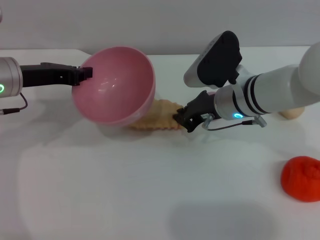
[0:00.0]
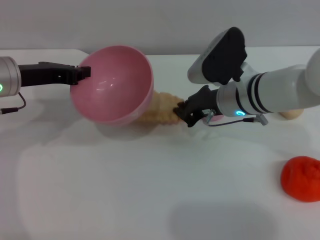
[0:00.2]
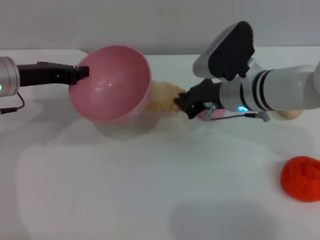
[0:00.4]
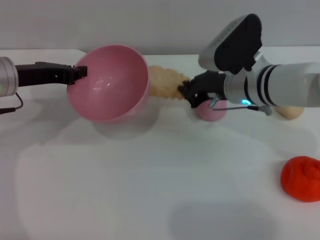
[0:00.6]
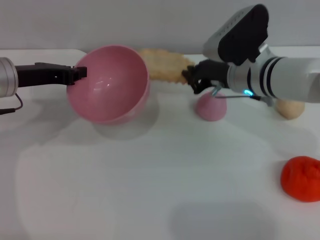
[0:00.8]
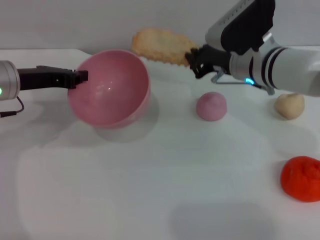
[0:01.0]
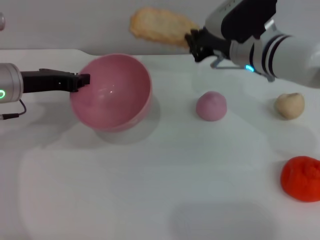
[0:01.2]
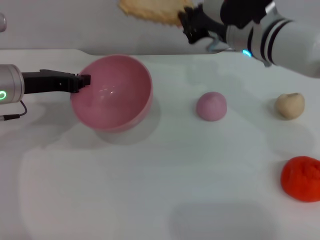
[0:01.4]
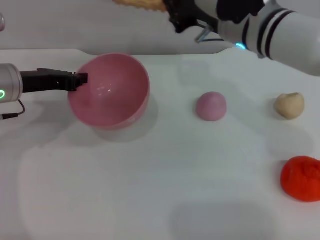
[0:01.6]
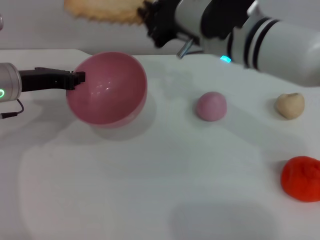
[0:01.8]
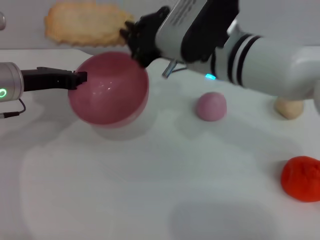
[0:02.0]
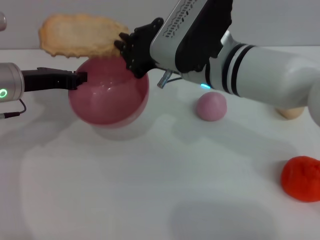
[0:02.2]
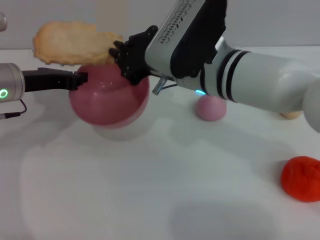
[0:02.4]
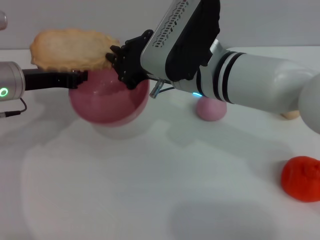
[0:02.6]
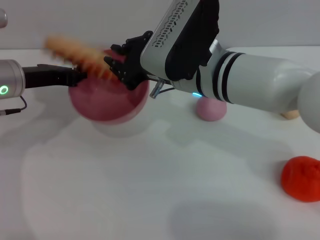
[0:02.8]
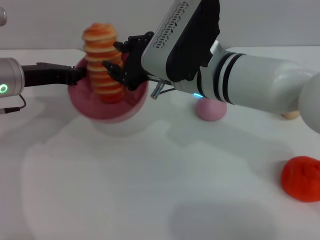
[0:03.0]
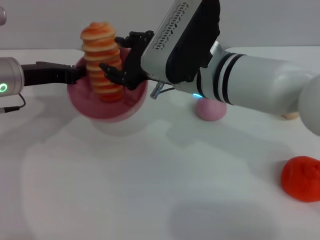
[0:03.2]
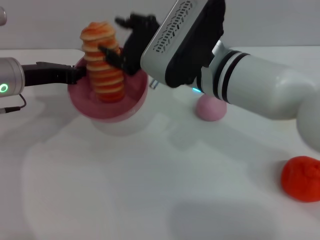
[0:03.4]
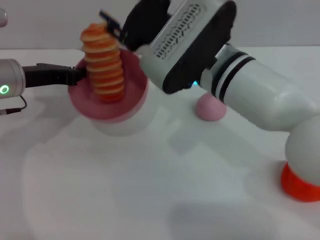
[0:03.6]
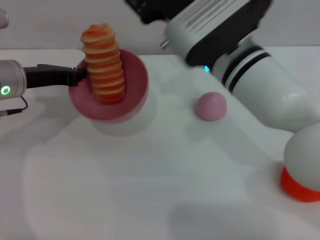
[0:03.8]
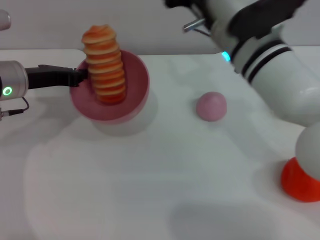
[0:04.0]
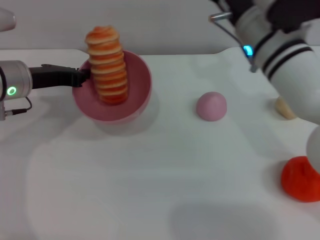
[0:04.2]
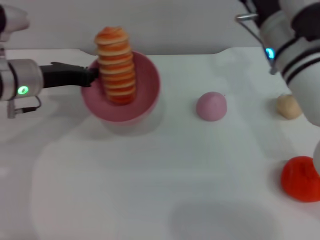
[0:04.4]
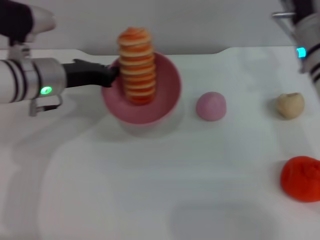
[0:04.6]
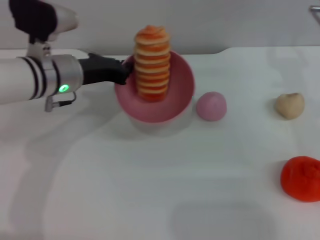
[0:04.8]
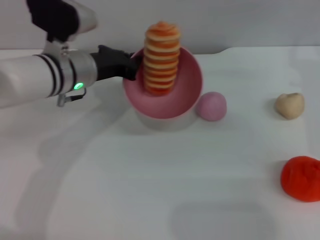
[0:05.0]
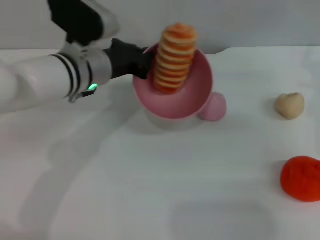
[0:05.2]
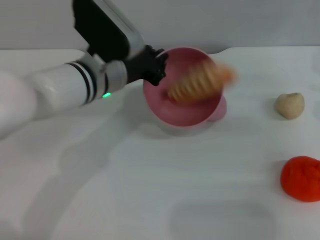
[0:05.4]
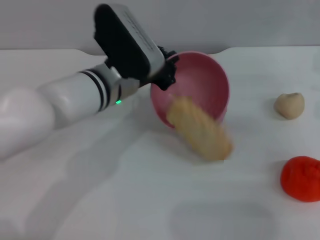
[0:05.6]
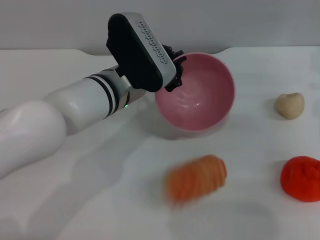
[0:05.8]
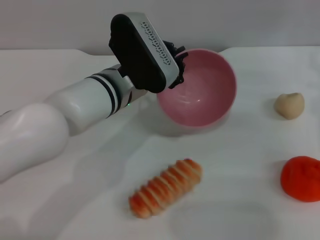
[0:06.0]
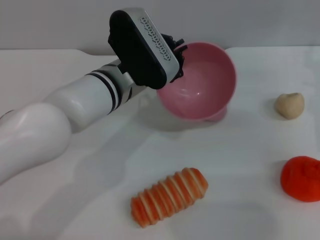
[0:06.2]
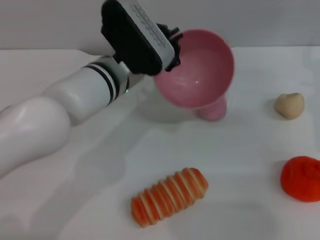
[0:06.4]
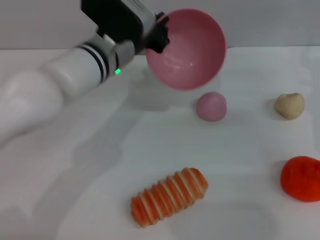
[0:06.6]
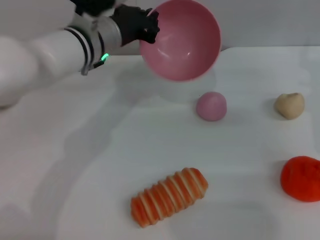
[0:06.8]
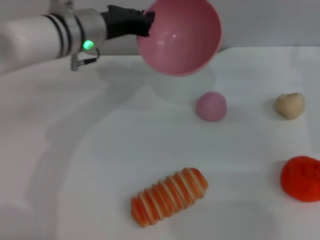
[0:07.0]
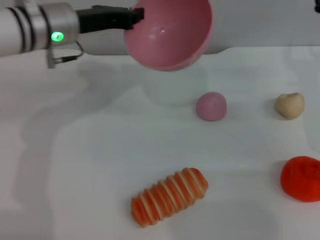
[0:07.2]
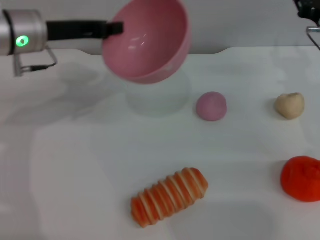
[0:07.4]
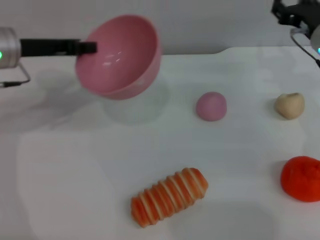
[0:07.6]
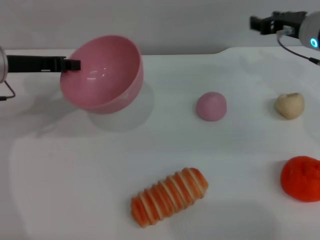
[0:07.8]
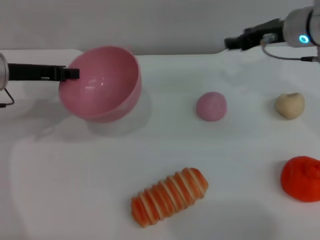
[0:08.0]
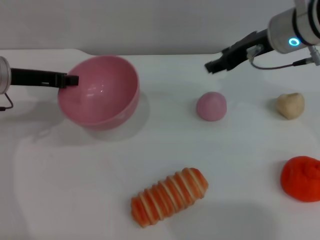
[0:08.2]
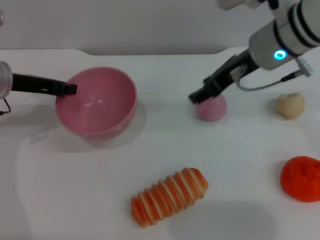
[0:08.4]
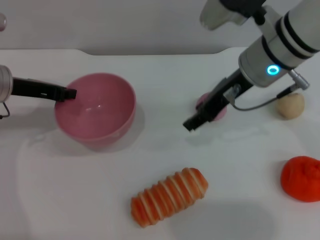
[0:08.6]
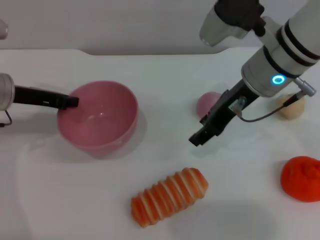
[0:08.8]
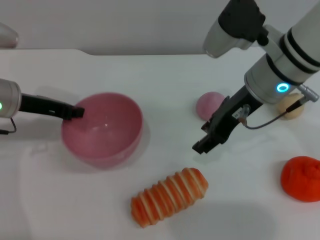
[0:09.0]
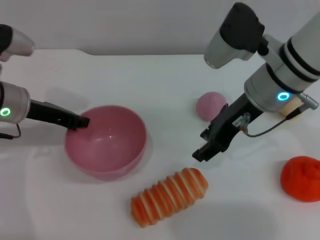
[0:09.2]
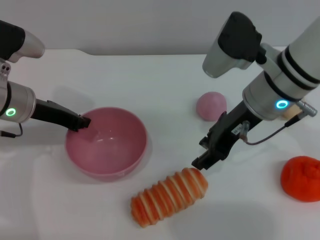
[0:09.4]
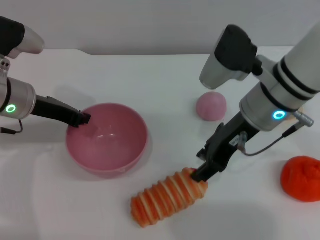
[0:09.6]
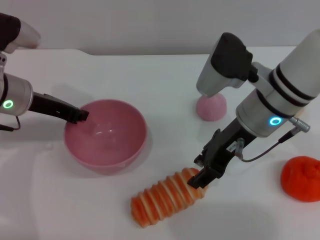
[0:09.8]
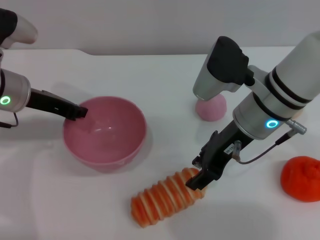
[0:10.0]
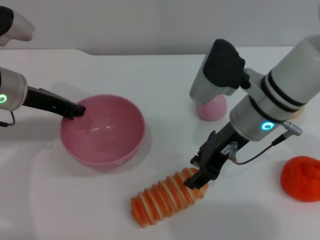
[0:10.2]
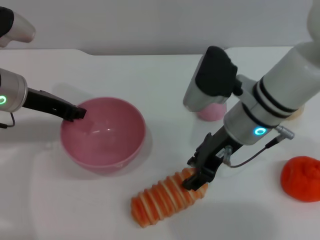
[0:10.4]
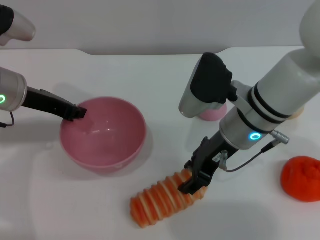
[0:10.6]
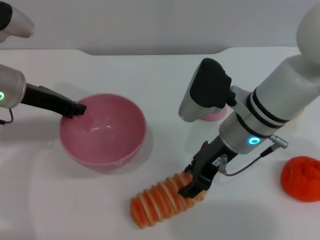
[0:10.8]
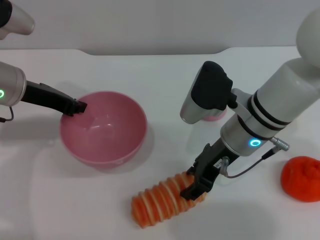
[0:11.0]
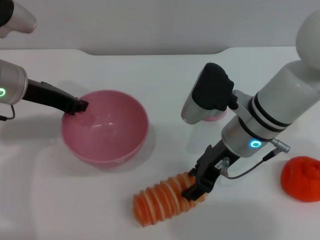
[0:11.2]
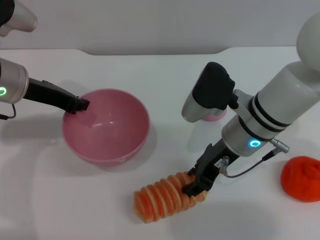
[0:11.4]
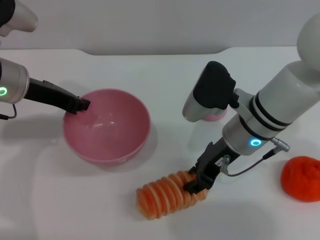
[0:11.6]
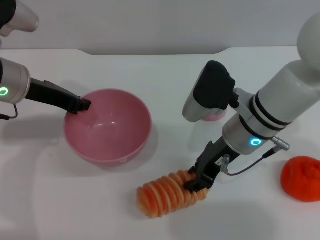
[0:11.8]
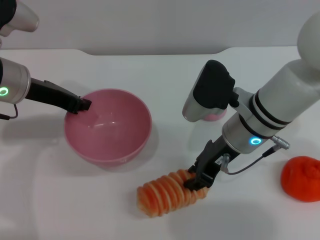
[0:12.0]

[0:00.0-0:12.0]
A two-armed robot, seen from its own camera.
Task of the whole recording: put the bread into the pink bowl and pour it out repeatedly.
Step, 1.0 to 3.6 s: Place the bread into the bowl.
Step, 3.8 to 7.0 s: Pour the bread out of the bowl.
0.0 to 1.6 s: The right gripper goes approximately 10 cm upward.
1.6 to 3.0 s: The right gripper heads to the left, covering about 5 cm.
3.0 to 4.4 s: The right gripper is displaced to the right by roughly 10 cm, and opens up.
4.4 to 6.0 s: Both grippers travel together to the right, about 15 cm.
6.0 to 7.6 s: The right gripper changes place by about 5 cm; the left gripper goes roughly 20 cm to the left.
7.6 to 9.0 s: The left gripper changes place by approximately 5 cm; the right gripper shifts roughly 15 cm to the left, upward and backward.
9.0 to 10.4 s: The right gripper moves downward, roughly 5 cm.
10.4 to 12.0 s: The right gripper closes.

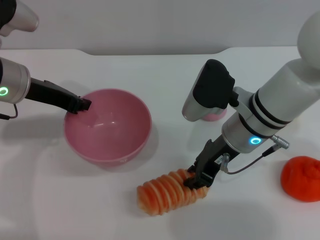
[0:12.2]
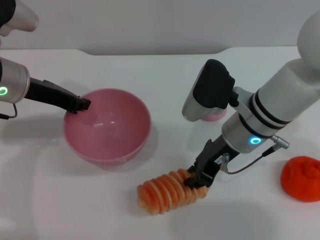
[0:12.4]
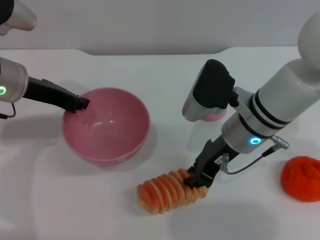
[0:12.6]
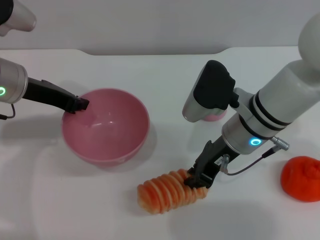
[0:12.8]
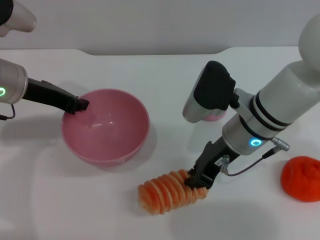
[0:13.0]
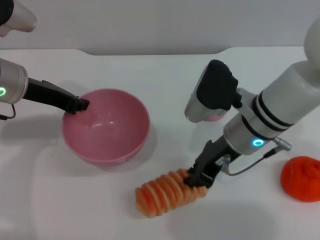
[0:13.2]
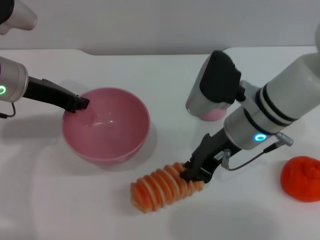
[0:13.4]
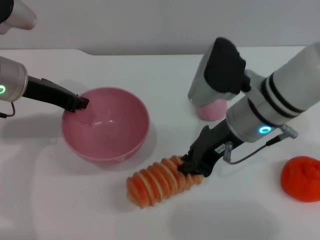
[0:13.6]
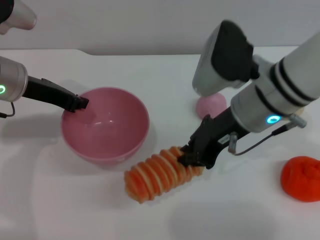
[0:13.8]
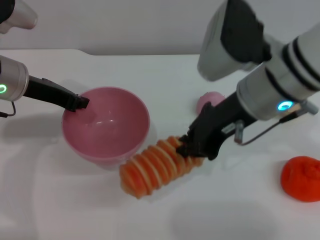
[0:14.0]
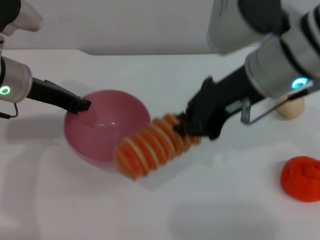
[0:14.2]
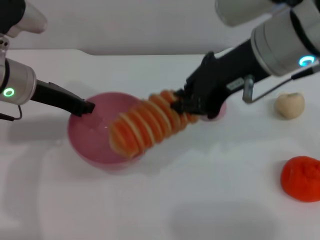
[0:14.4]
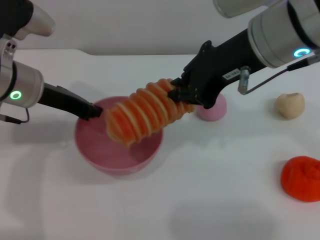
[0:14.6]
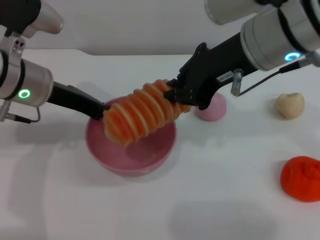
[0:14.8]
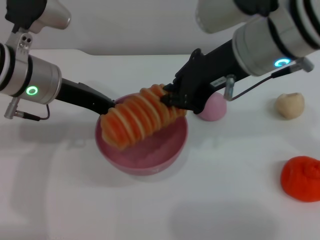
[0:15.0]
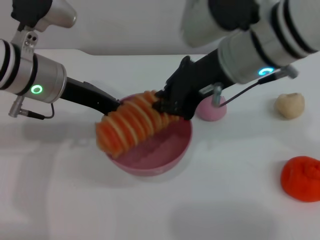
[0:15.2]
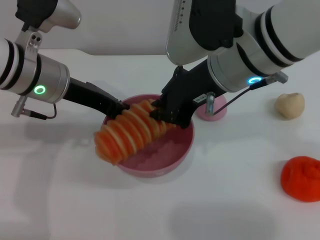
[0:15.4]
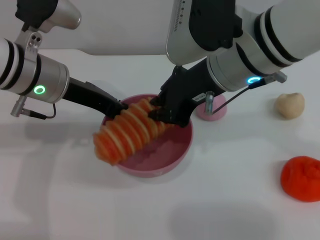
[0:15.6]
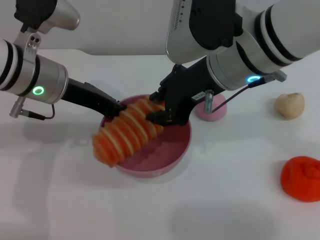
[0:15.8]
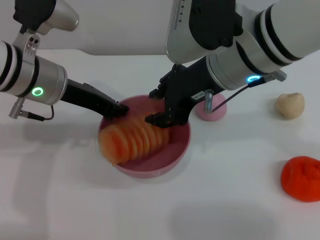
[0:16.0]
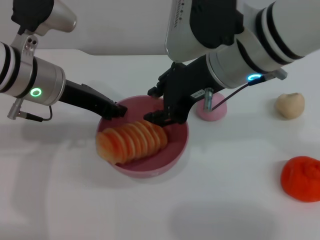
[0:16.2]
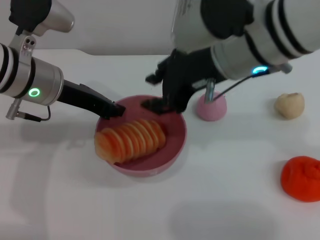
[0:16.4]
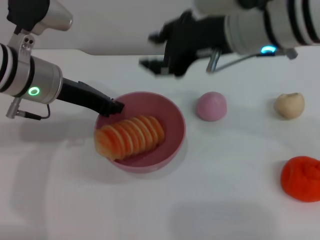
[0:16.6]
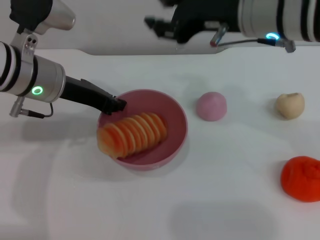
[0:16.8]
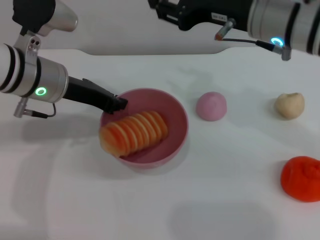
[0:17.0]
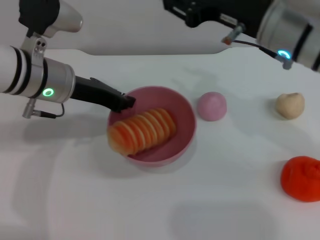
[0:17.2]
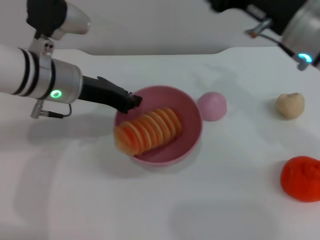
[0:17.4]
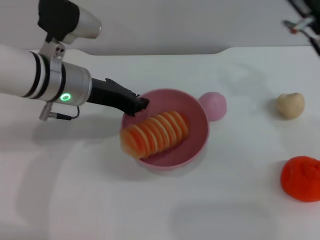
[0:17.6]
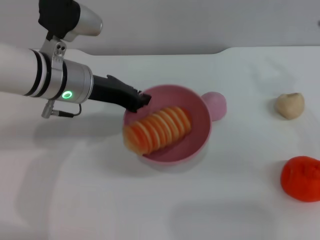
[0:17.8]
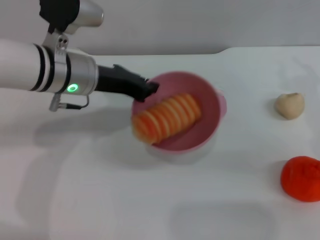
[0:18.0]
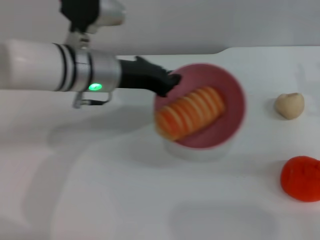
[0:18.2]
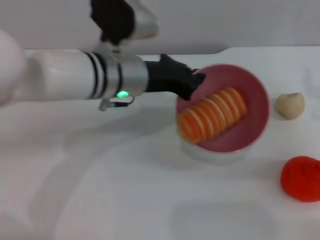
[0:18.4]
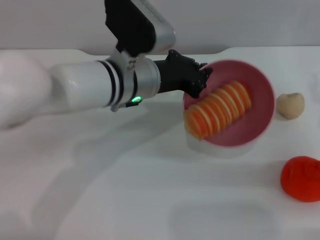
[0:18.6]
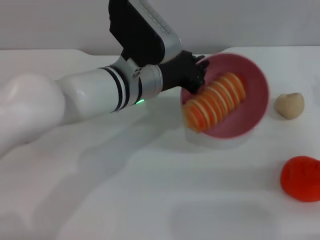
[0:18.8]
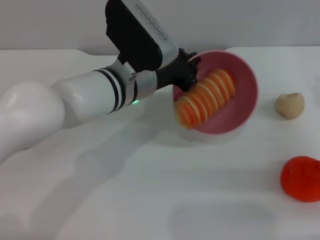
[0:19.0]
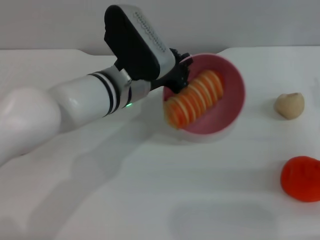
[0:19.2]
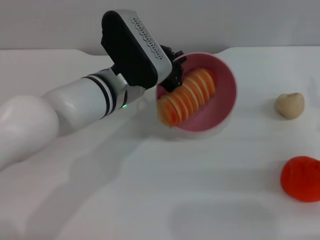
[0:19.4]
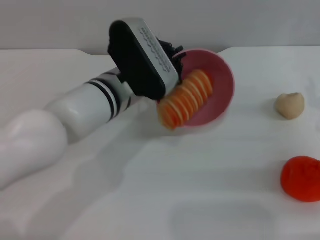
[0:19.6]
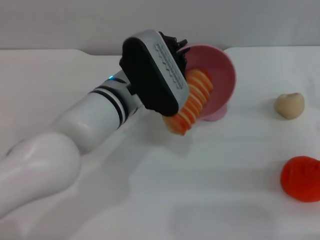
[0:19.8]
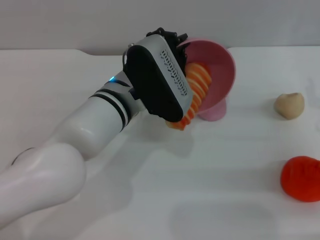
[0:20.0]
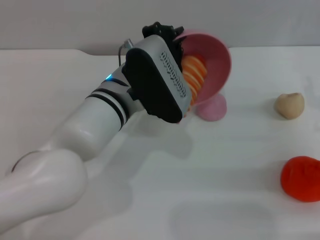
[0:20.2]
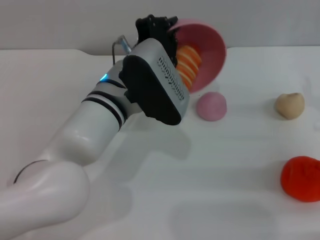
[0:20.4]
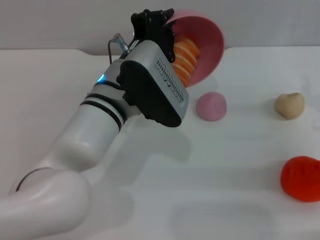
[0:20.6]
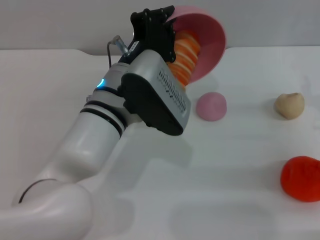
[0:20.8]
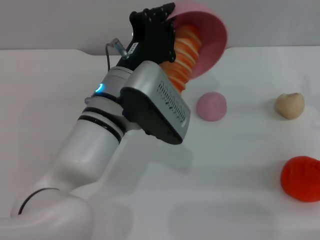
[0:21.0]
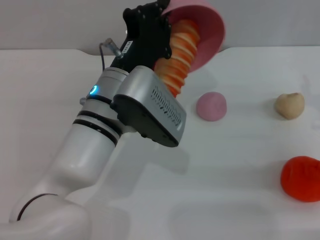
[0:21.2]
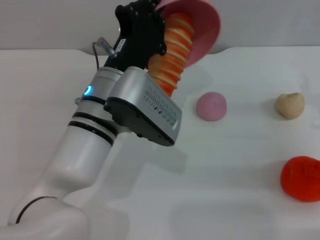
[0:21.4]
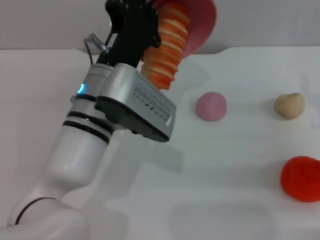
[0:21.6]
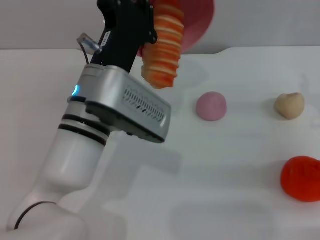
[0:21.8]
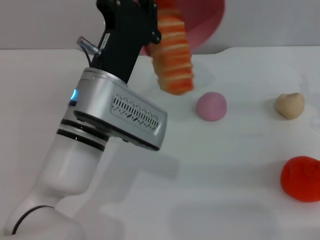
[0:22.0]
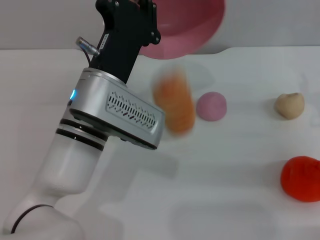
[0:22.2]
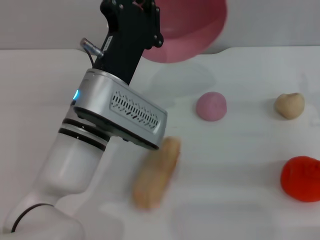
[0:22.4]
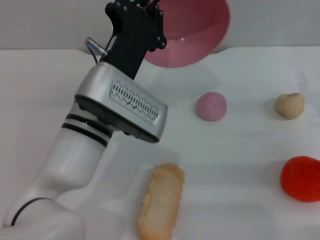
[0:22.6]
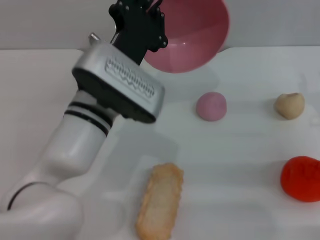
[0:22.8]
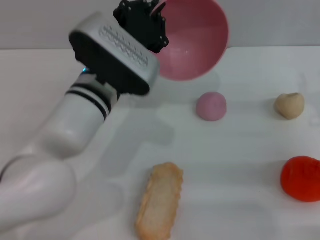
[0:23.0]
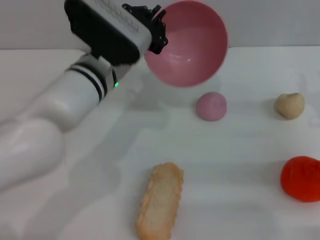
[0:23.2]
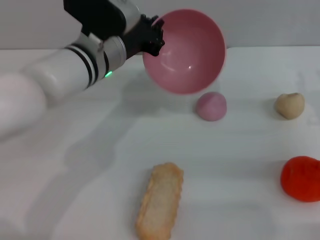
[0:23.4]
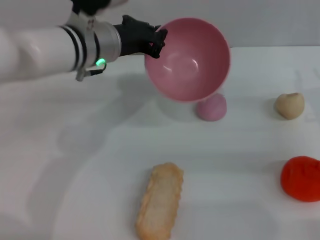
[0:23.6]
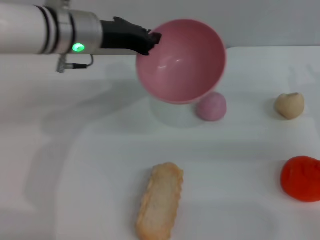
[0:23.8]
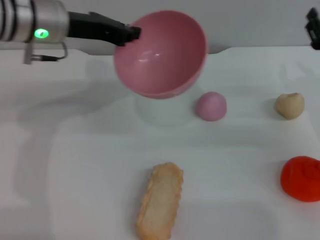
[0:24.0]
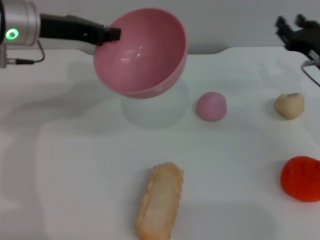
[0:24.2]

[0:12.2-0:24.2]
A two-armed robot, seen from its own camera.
Task of the whole recording: put the bread into the pink bowl and pour it out repeatedly.
Step, 14.2 to 16.8 s: Place the bread into the bowl.
Step, 17.0 to 22.6 s: Pour the bread out of the bowl.
12.2 to 13.8 s: The right gripper is displaced upward by approximately 5 cm.
13.8 to 15.2 s: The left gripper heads to the right, covering about 5 cm. Meanwhile the right gripper shifts roughly 5 cm upward.
15.2 to 16.6 s: The right gripper opens.
16.6 to 18.2 s: The right gripper goes about 25 cm to the right and downward; the left gripper is displaced to the right by approximately 5 cm.
18.2 to 19.8 s: The left gripper moves to the right, approximately 5 cm.
21.2 to 22.6 s: The grippers stay close to where they were, moving slightly.
22.6 to 24.2 s: The left gripper shifts about 20 cm to the left, forward and upward; the right gripper moves forward, roughly 10 cm.
